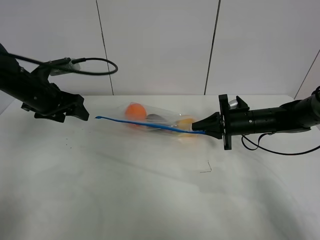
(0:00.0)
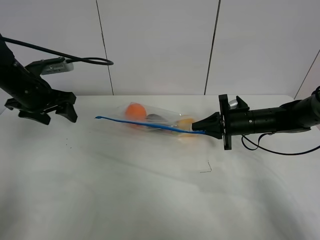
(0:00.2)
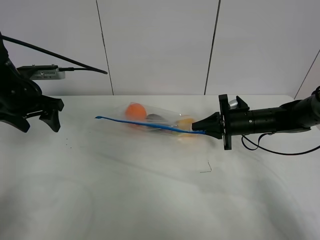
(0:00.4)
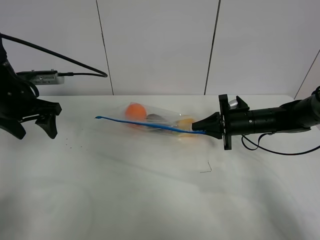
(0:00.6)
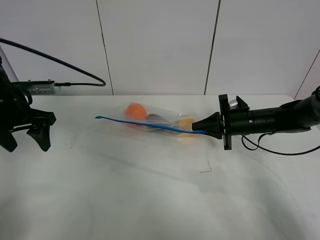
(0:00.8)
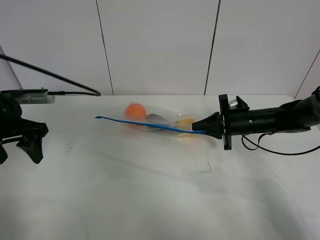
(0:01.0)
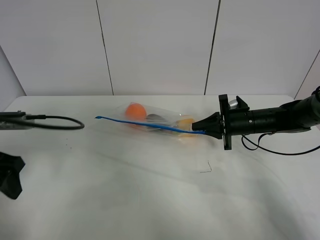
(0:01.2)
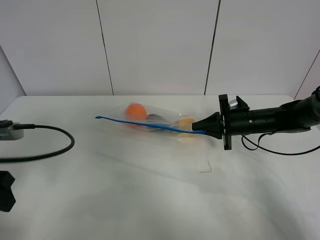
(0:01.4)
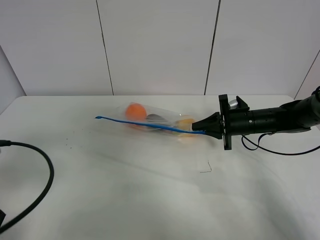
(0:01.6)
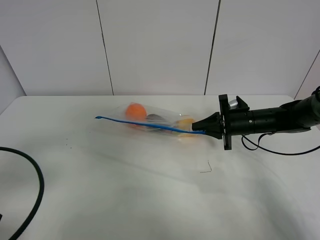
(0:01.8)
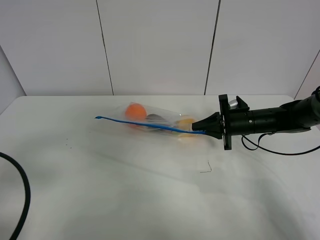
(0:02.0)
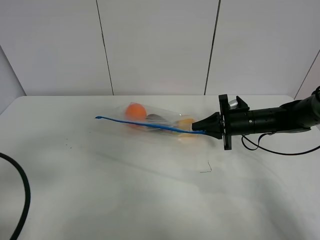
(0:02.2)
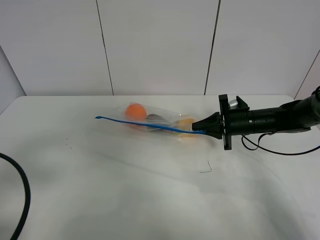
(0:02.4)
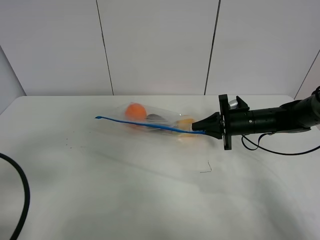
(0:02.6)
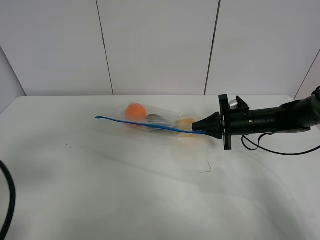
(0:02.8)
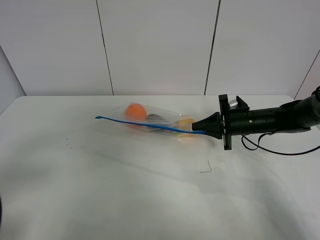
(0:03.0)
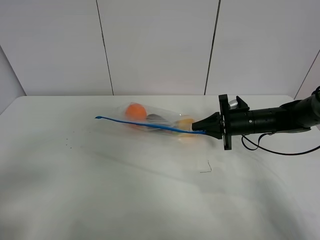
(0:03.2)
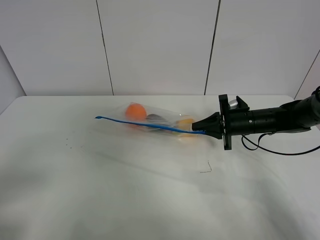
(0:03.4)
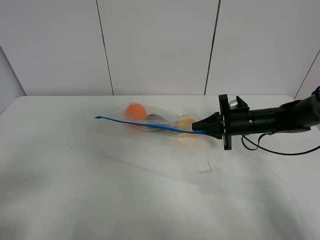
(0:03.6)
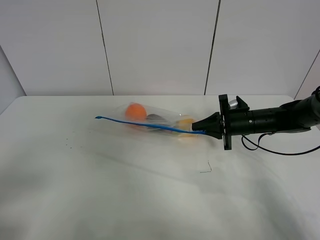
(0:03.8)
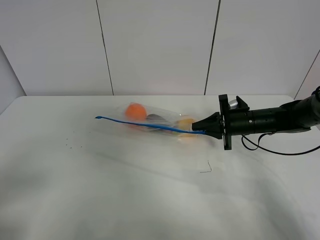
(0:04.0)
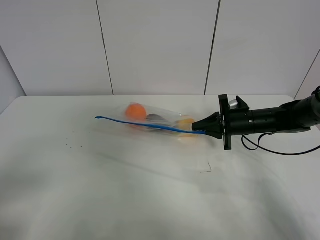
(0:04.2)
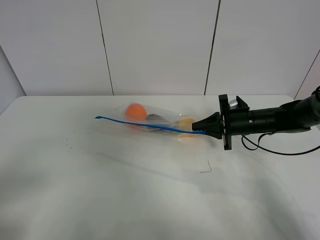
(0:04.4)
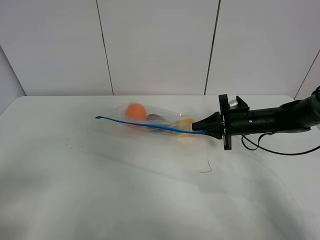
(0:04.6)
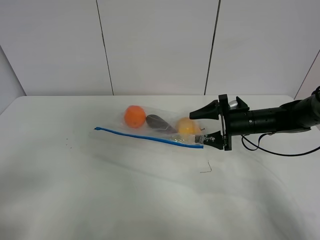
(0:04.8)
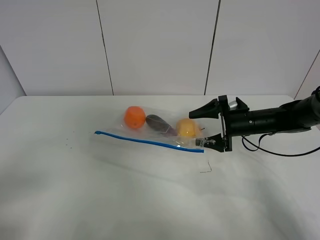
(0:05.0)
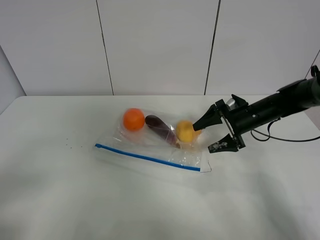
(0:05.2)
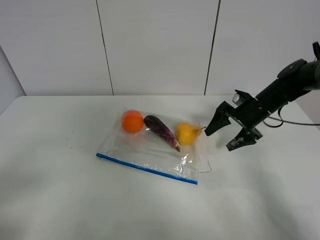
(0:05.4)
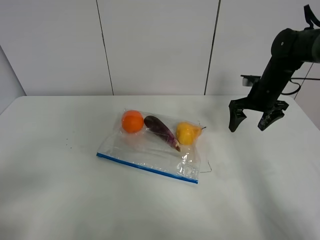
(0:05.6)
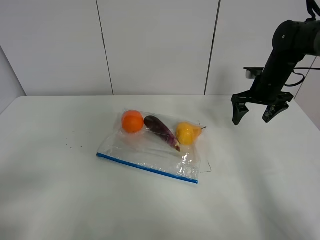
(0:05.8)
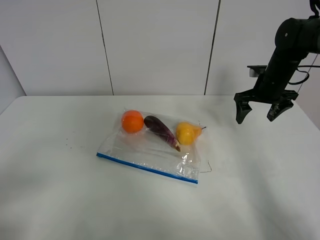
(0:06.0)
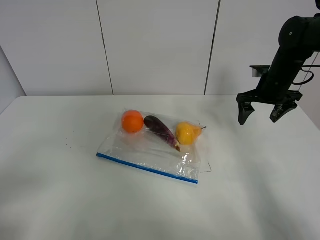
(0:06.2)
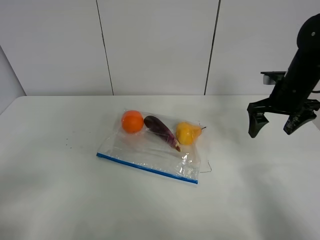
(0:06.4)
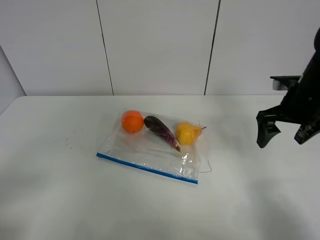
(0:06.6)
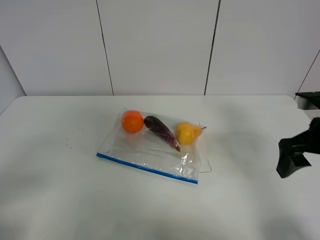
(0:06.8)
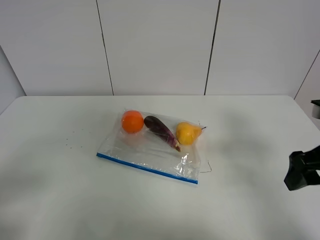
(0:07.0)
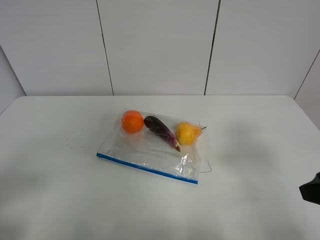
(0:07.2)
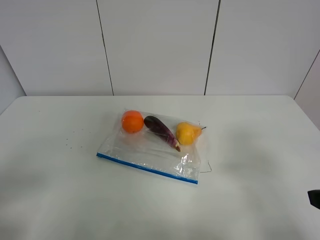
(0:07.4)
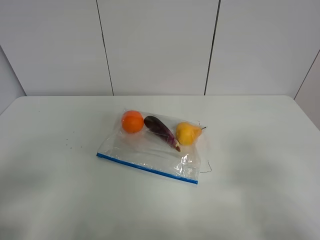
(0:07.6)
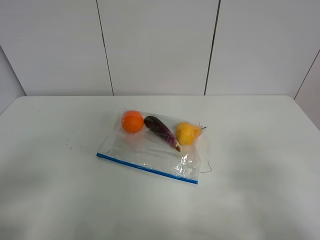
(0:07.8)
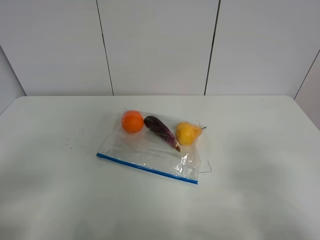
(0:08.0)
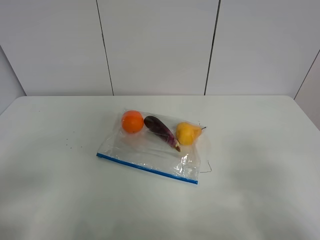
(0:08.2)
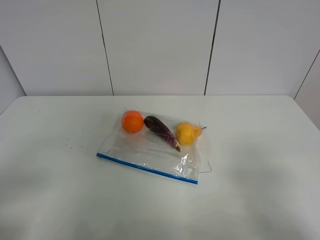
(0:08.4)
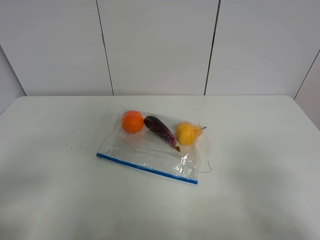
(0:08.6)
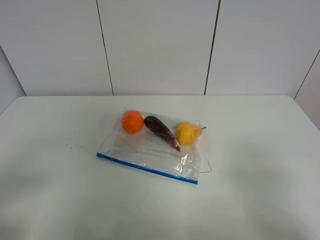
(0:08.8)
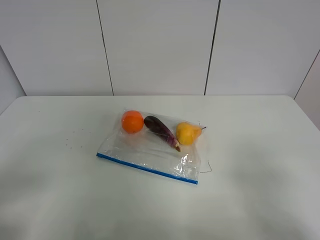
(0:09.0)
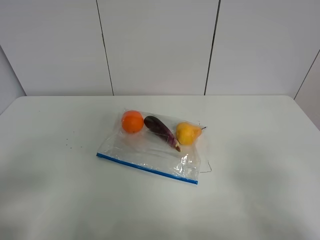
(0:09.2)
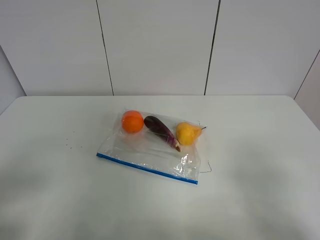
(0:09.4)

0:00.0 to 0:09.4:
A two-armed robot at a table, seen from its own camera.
0:00.0 to 0:01.6: The left gripper shifts about 25 cm backward.
0:01.6 to 0:03.2: The left gripper travels backward by approximately 10 cm.
0:03.2 to 0:04.8: The right gripper opens.
0:04.8 to 0:06.2: The right gripper moves upward, approximately 10 cm.
0:06.2 to 0:07.8: The right gripper travels backward by about 40 cm.

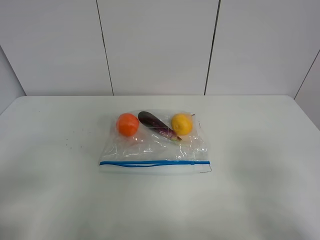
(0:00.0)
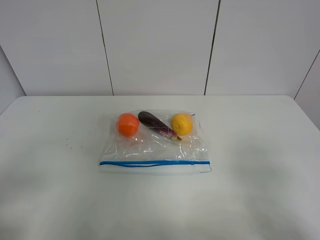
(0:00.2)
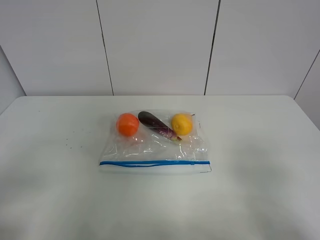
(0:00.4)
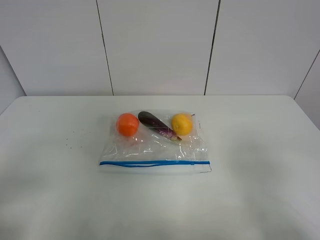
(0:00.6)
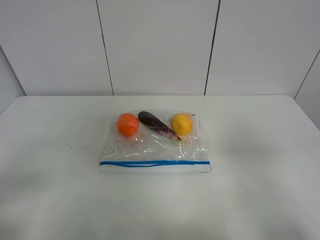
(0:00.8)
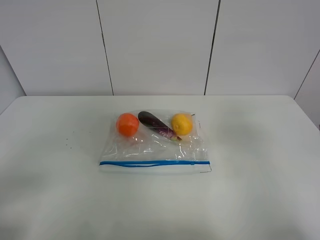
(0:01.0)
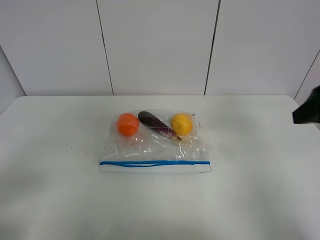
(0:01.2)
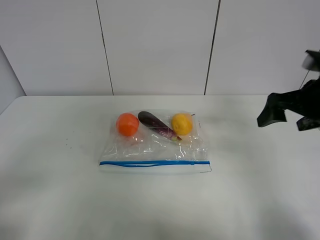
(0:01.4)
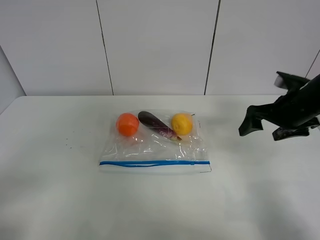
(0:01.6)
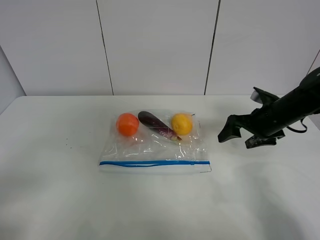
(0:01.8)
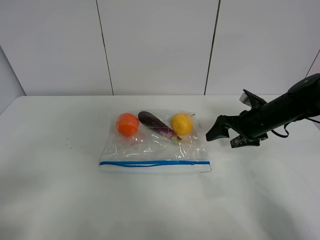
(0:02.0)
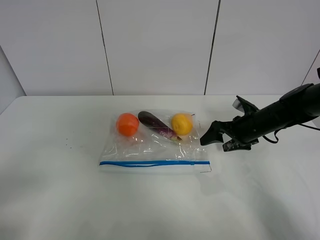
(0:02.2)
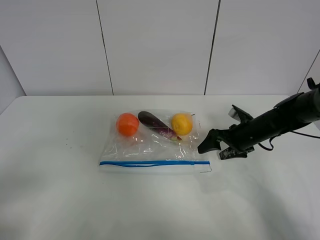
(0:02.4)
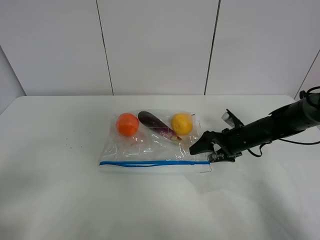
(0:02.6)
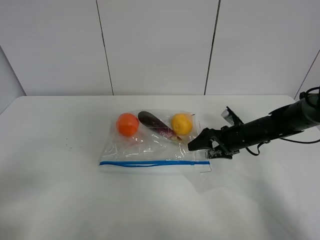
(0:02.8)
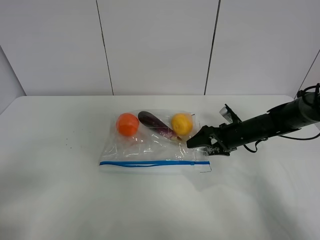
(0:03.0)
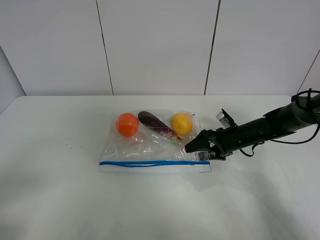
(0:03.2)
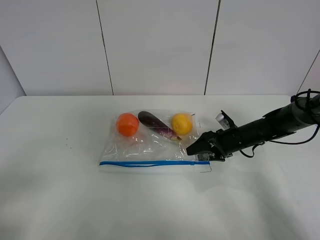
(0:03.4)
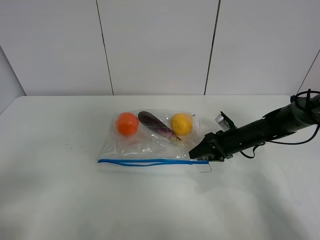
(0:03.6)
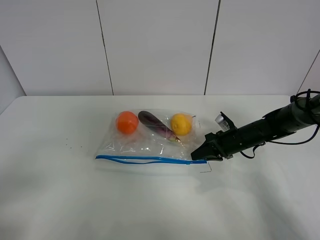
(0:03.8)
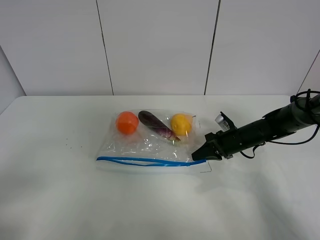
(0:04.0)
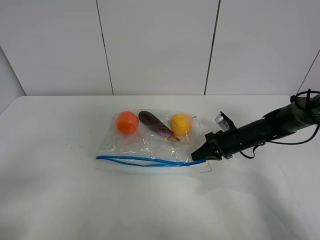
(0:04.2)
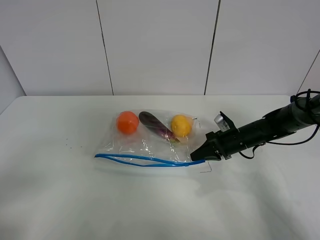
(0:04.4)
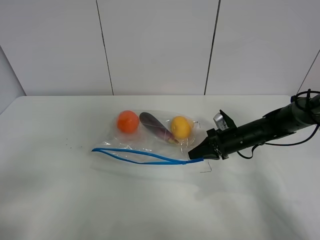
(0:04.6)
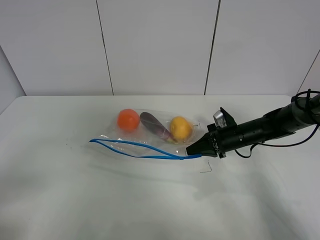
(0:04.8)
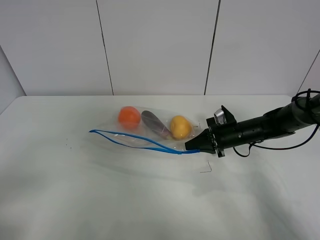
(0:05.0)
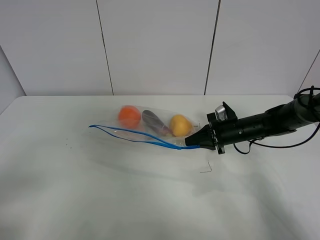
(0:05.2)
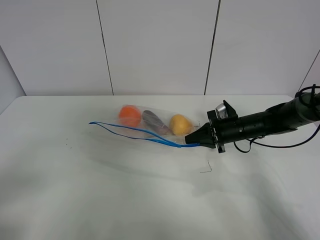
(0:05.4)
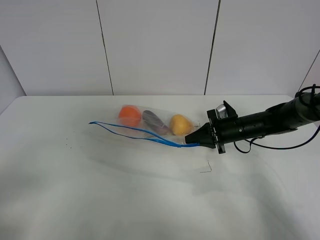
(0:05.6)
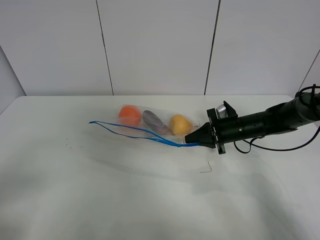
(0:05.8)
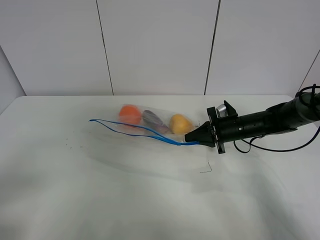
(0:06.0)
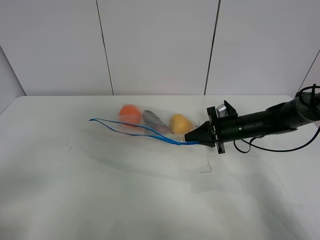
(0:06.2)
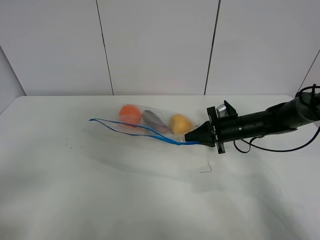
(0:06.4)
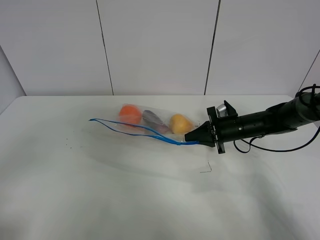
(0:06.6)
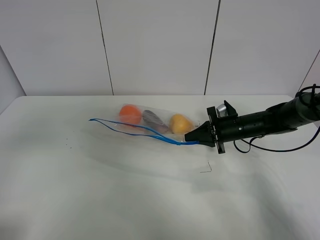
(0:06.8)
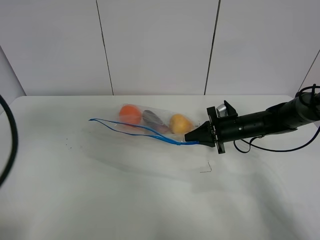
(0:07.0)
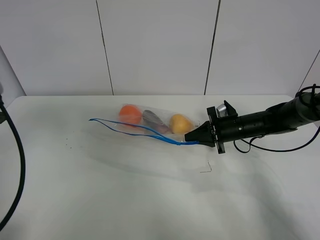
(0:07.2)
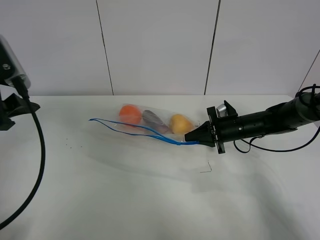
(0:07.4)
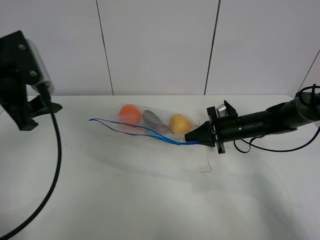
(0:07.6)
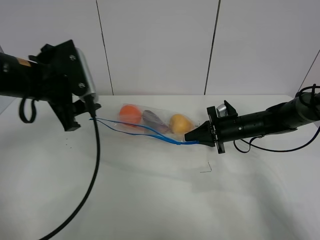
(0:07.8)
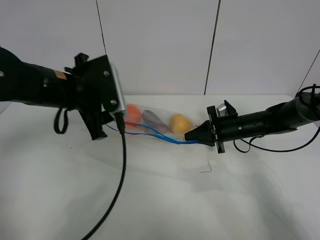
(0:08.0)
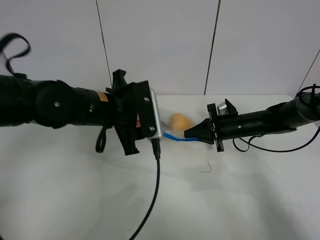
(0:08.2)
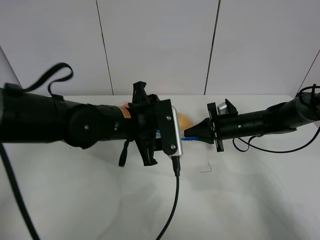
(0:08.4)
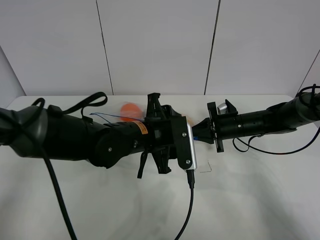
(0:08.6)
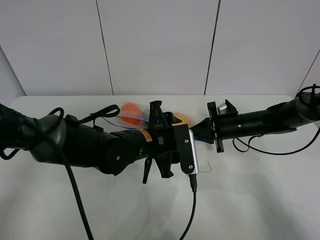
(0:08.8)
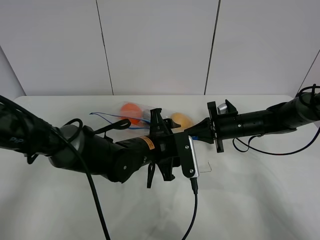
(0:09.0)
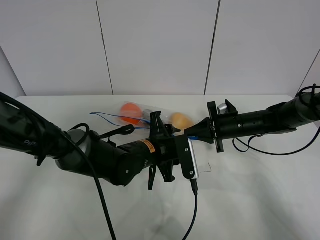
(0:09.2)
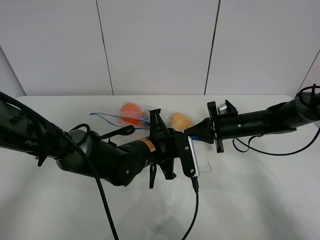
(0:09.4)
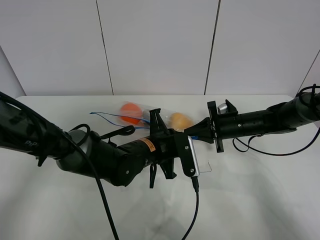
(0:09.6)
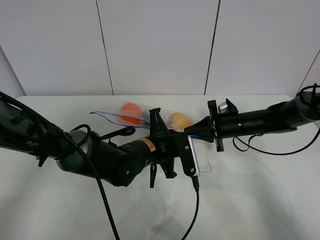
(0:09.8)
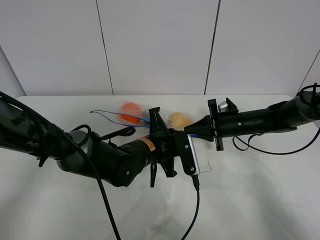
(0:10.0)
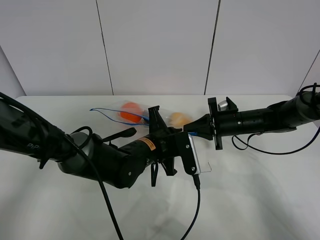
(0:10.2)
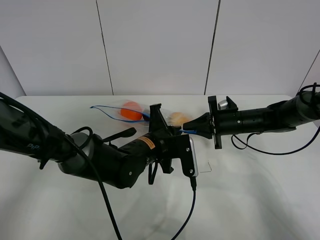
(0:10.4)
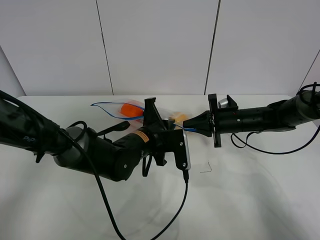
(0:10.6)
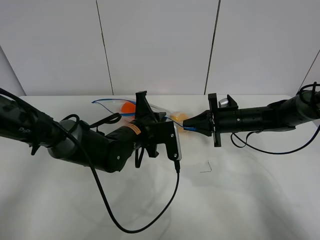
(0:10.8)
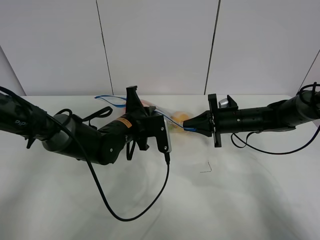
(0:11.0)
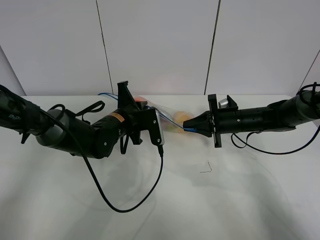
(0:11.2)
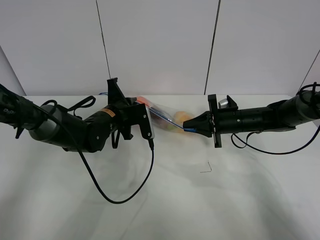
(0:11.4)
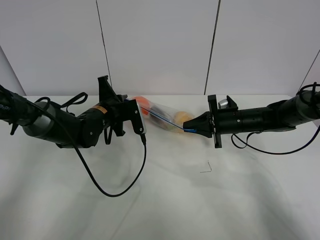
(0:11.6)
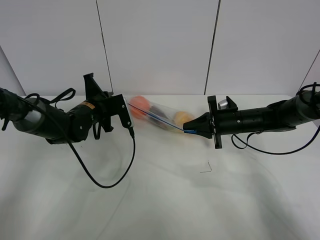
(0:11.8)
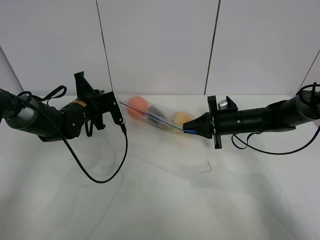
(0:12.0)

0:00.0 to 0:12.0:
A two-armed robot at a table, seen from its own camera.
Step, 0:00.0 to 0:04.0: Grasp the fruit bag with right gripper.
Step, 0:04.2 to 0:06.0: Lift the fruit bag with your right gripper.
0:00.0 to 0:01.6: The right gripper travels forward by approximately 30 cm.
0:01.6 to 0:03.0: The right gripper goes some 15 cm downward, forward and to the left.
0:03.0 to 0:04.4: The right gripper closes its fingers.
0:04.4 to 0:06.0: The grippers move only a little.
0:06.0 to 0:07.6: The left gripper goes roughly 25 cm forward.
0:07.6 to 0:09.0: The left gripper is displaced to the right and downward by roughly 30 cm.
0:09.0 to 0:10.4: The left gripper closes its fingers.
0:10.4 to 0:12.0: The left gripper is displaced to the left and forward by about 20 cm.

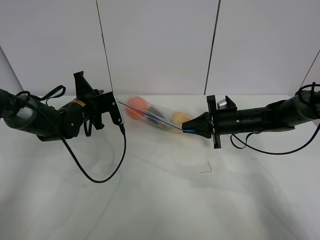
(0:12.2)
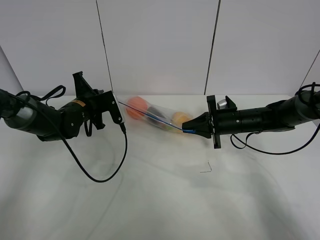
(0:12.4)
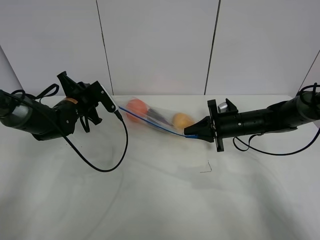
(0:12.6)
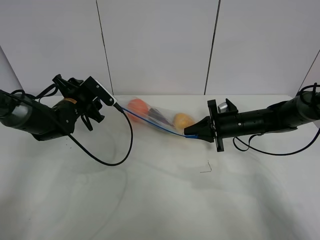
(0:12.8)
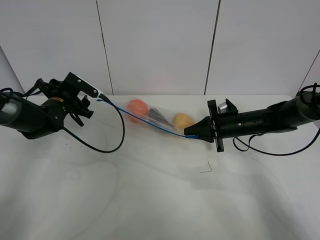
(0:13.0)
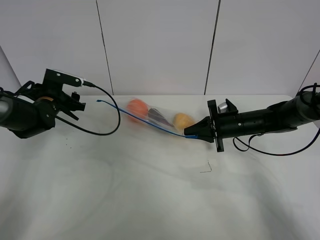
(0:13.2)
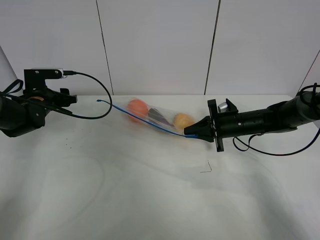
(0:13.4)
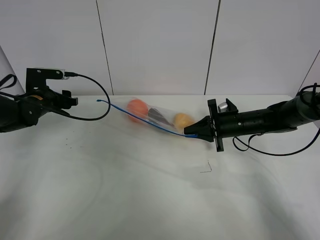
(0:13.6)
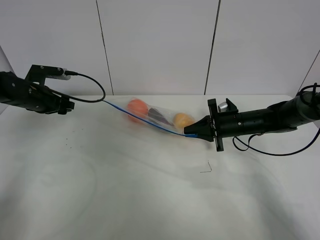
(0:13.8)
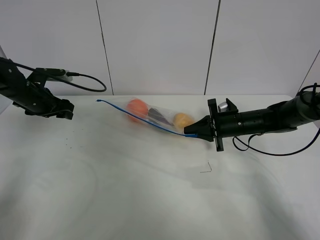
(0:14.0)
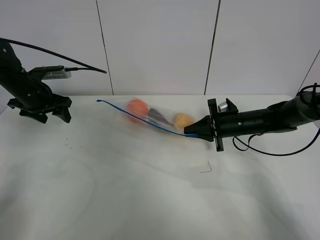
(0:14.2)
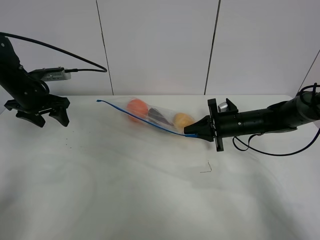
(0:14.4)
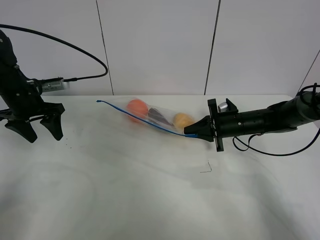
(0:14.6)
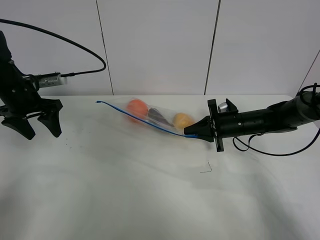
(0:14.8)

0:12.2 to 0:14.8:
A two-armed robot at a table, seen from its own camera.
0:12.2 to 0:13.4: The left gripper shifts about 10 cm to the left, and opens its fingers.
0:13.4 to 0:14.8: The left gripper is displaced upward by approximately 10 cm.
